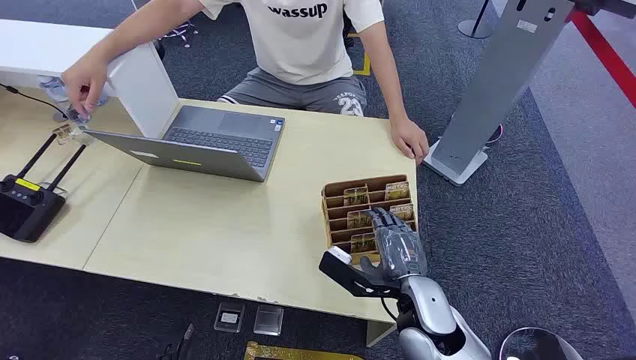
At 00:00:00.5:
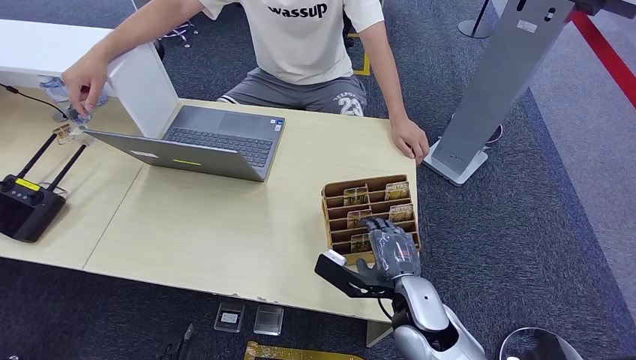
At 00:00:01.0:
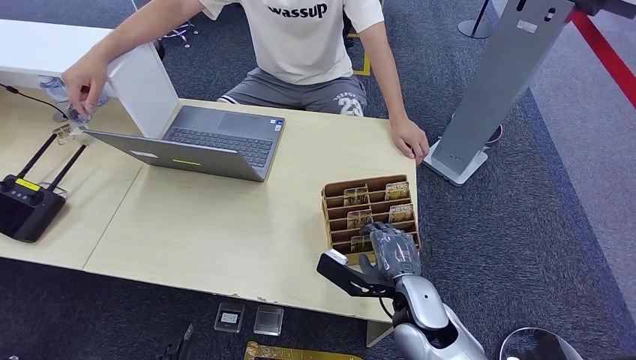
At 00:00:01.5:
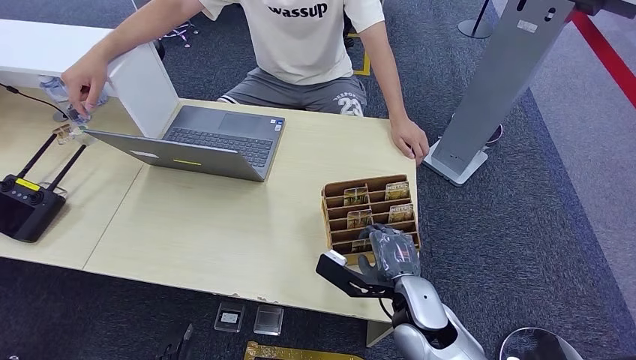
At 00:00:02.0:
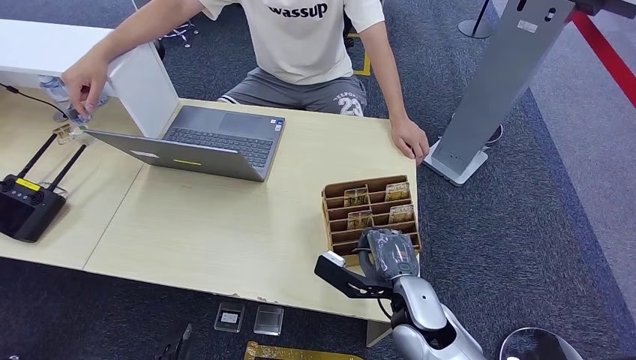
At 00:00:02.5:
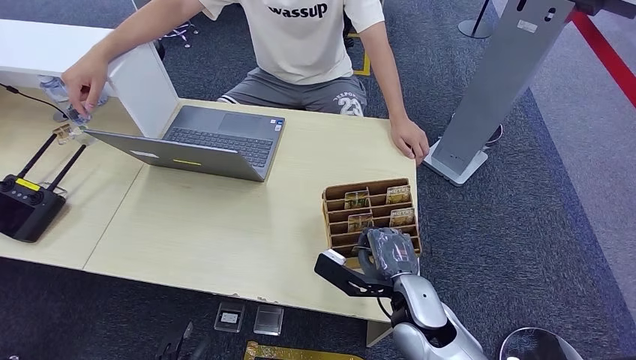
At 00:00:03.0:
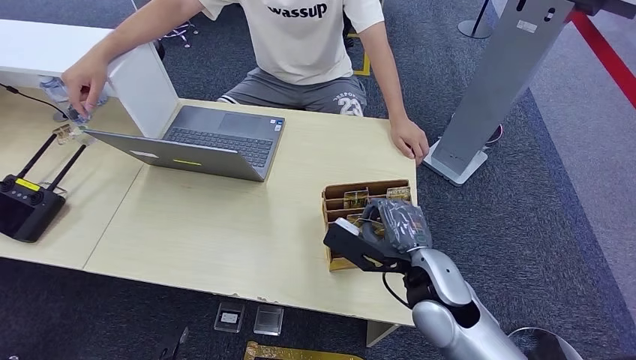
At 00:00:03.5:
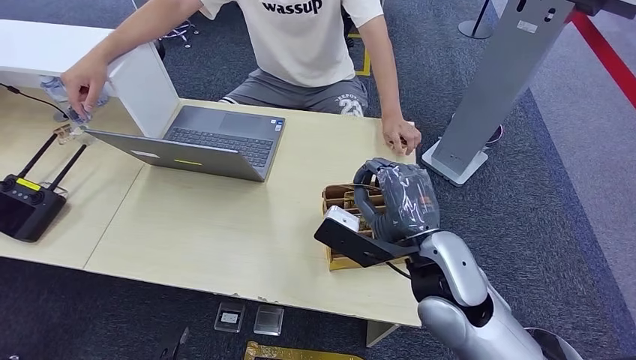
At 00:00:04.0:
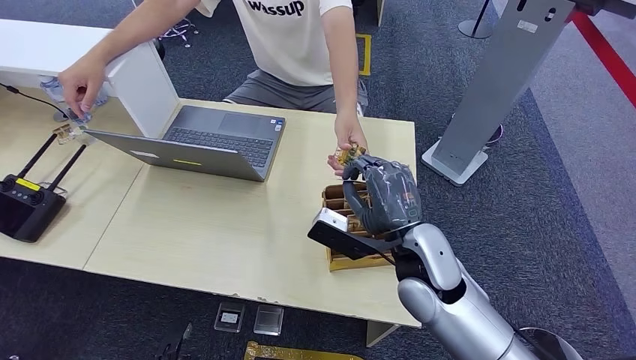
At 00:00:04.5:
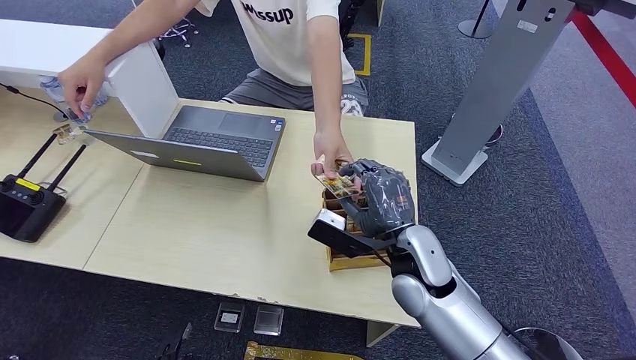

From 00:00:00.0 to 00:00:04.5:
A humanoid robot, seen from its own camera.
Step, from 00:00:00.0 to 00:00:02.5: Pick up the key card from the card box.
Step, from 00:00:03.5 to 00:00:04.5: Hand the key card to the target.
From 00:00:02.0 to 00:00:04.5: The right hand heads upward and forward, covering some 10 cm.
